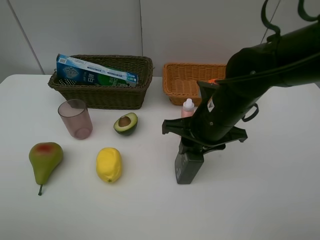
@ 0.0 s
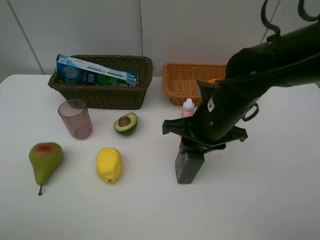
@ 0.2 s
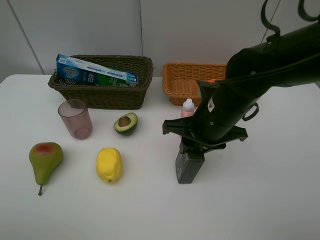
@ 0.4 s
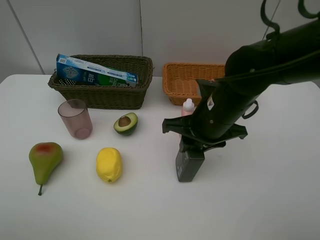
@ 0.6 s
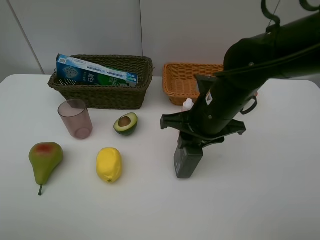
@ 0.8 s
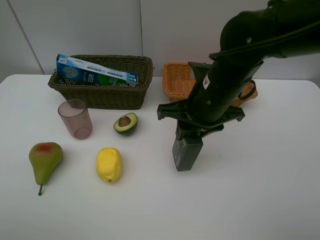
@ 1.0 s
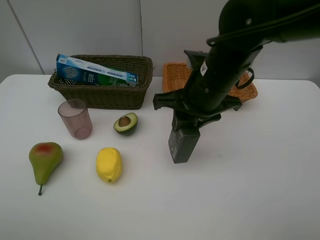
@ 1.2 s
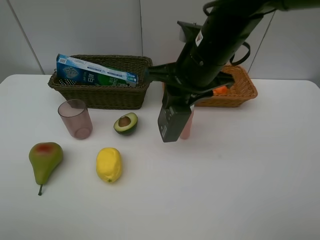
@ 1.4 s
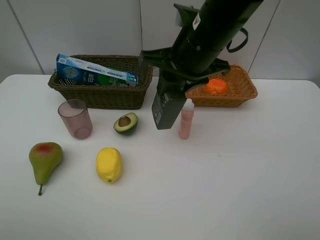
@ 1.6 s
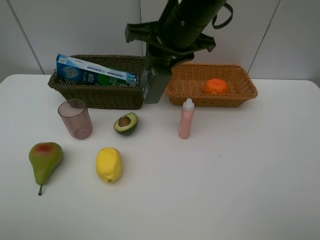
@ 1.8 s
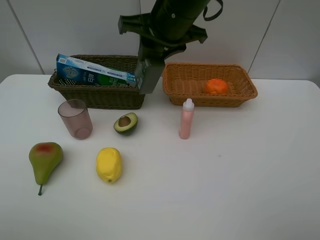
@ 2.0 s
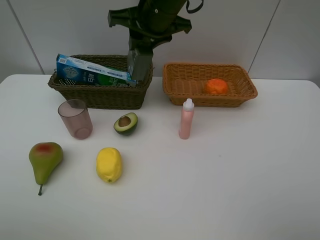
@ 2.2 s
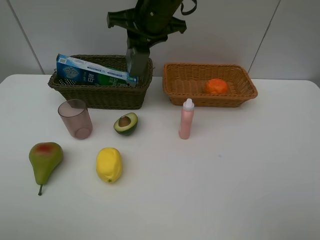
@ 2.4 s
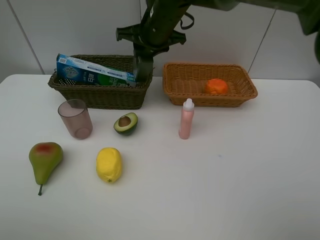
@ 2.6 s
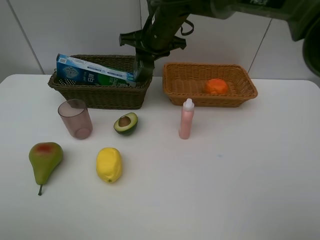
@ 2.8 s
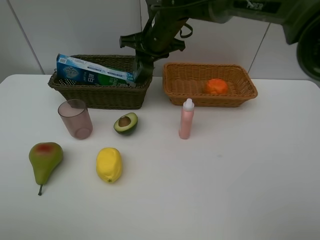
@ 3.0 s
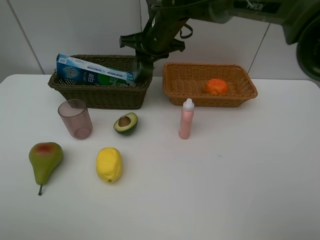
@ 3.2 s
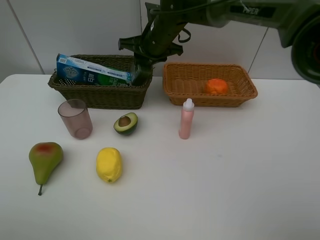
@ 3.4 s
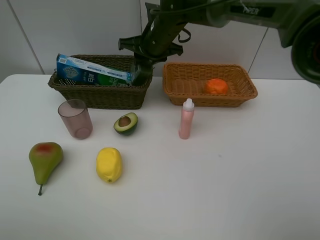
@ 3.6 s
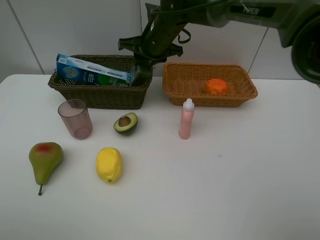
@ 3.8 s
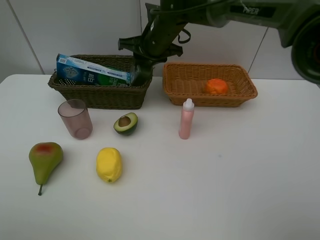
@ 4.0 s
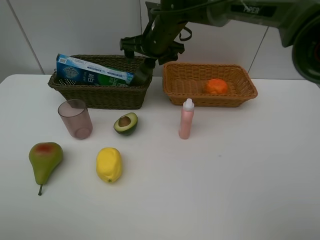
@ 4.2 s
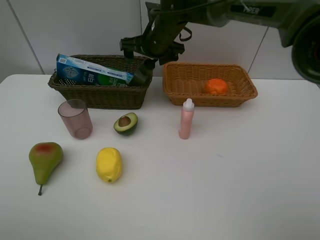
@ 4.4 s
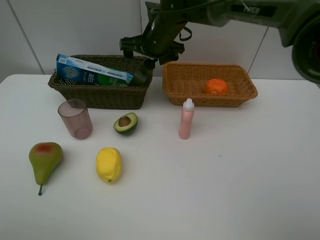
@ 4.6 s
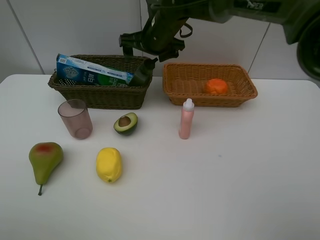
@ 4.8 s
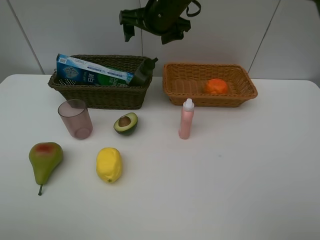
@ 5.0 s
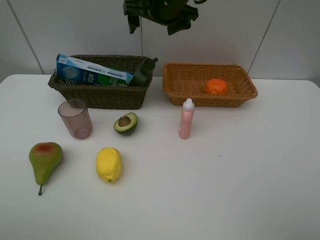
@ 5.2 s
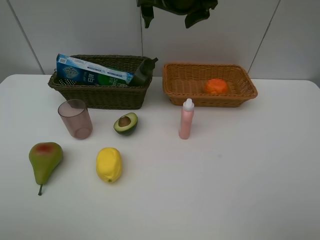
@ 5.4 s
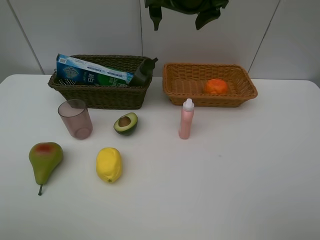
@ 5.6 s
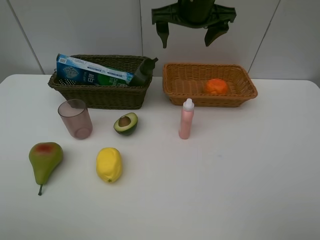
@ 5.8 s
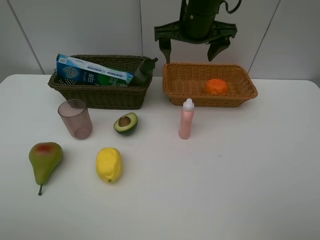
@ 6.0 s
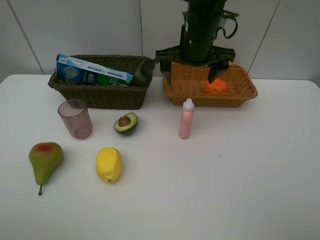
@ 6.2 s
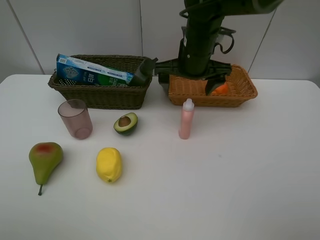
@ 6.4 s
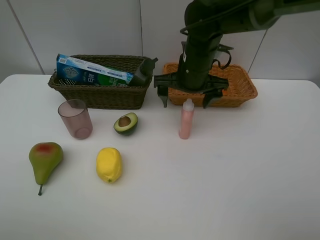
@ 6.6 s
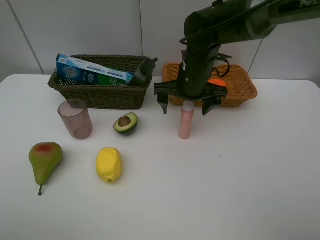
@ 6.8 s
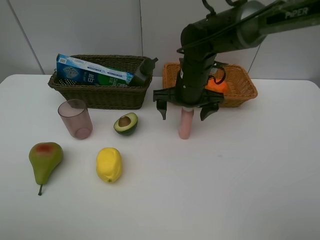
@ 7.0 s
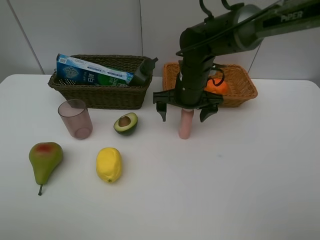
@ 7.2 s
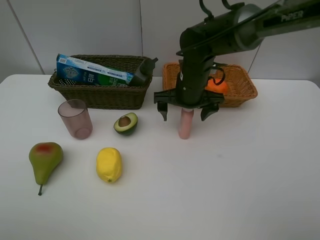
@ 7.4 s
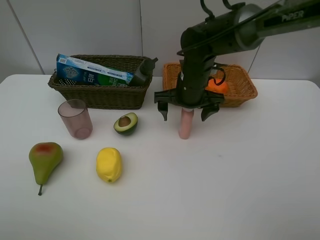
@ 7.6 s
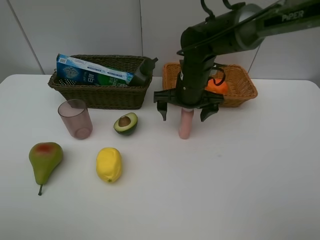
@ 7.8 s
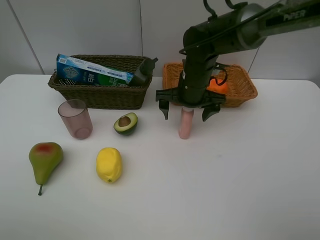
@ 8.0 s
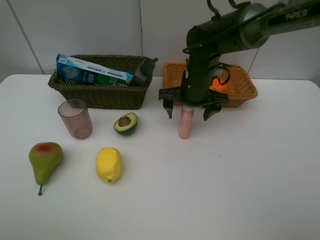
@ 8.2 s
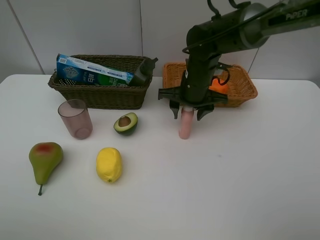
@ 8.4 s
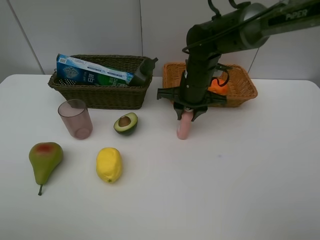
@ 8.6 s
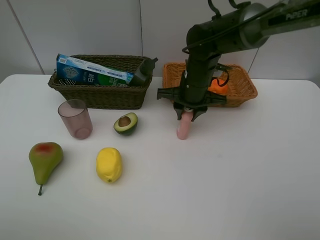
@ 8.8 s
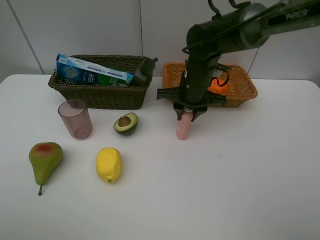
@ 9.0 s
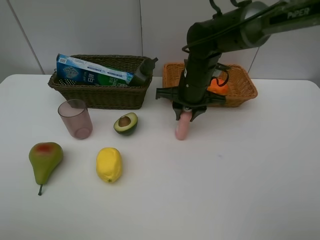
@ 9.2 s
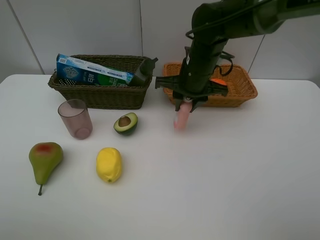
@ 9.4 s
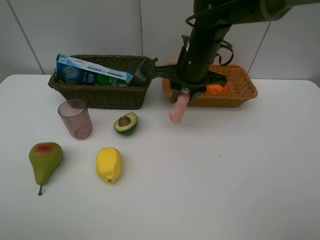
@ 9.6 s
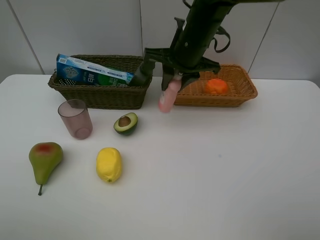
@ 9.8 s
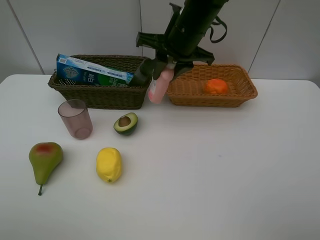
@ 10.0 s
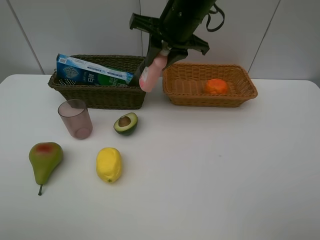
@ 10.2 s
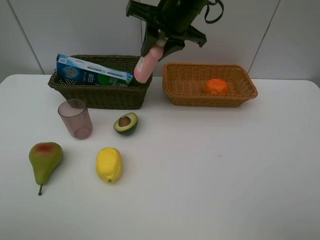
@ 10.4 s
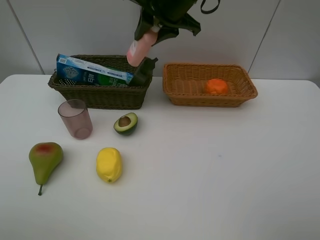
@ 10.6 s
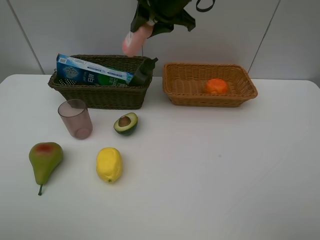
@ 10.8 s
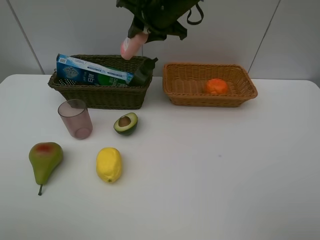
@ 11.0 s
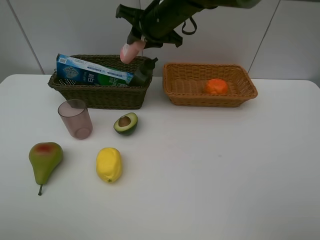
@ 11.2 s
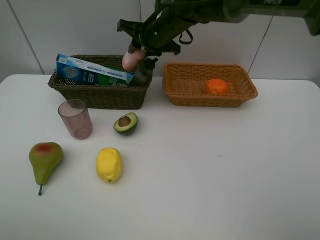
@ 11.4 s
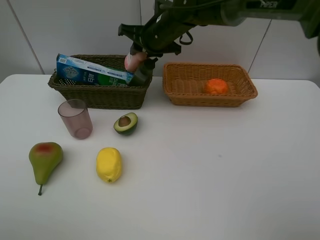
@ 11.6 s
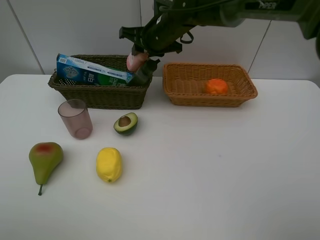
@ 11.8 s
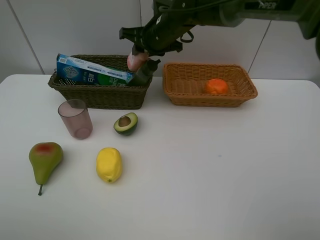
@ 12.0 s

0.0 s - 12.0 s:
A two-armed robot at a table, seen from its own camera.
Task of the whole recording: Place multiple objects separately in different baskets.
Step, 1.2 s - 4.8 s: Place the hard facial cleanser in the dark basket with right gripper.
Step, 5.0 s - 9.2 s: Pick up the laundry detergent with right gripper.
0.0 s - 1.6 s: The right gripper goes roughly 10 cm upward.
1.6 s - 3.0 s: The right gripper shifts about 15 cm forward.
3.0 s - 4.4 s: The right gripper opens its fingers.
4.4 s - 6.0 s: The right gripper travels upward, to the right and backward by approximately 10 cm.
6.0 s - 7.6 s: The right gripper heads downward, covering some 15 cm.
7.6 s - 9.0 s: The right gripper closes its fingers.
9.0 s - 10.4 s: The right gripper heads upward, covering about 15 cm.
10.4 s - 12.0 s: The right gripper shifts about 10 cm downward and forward.

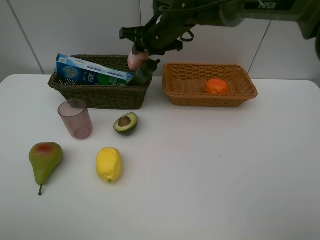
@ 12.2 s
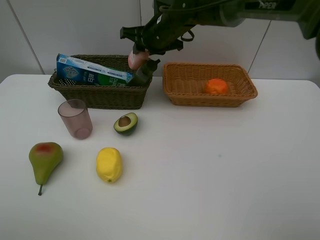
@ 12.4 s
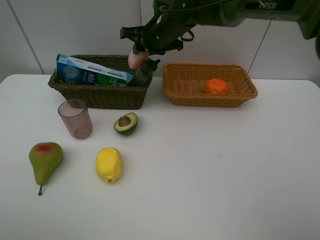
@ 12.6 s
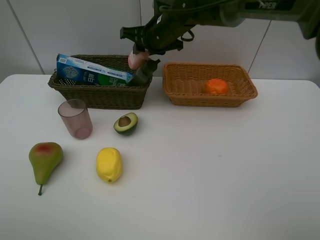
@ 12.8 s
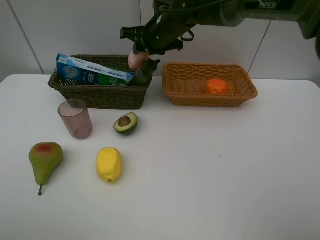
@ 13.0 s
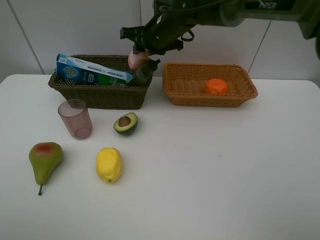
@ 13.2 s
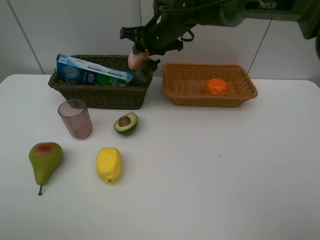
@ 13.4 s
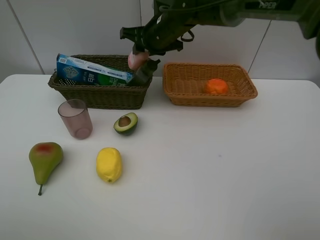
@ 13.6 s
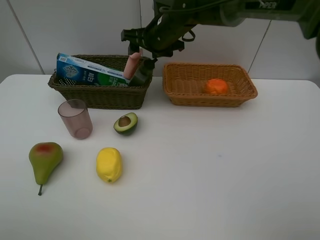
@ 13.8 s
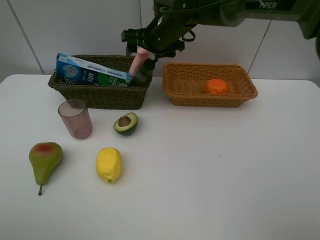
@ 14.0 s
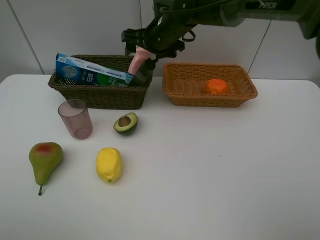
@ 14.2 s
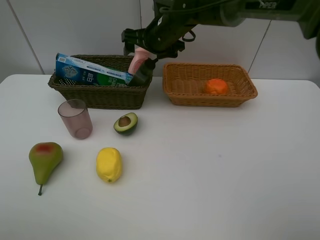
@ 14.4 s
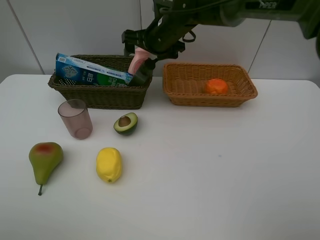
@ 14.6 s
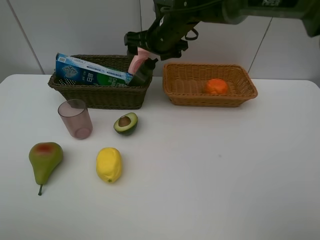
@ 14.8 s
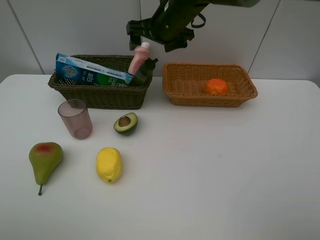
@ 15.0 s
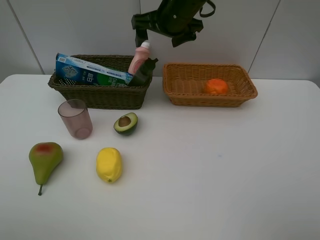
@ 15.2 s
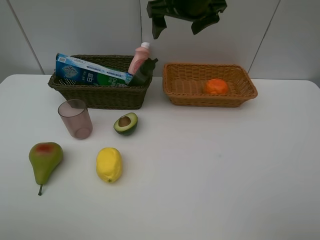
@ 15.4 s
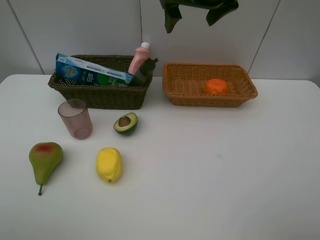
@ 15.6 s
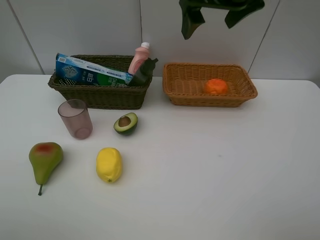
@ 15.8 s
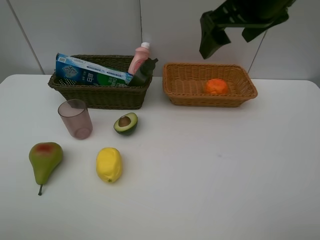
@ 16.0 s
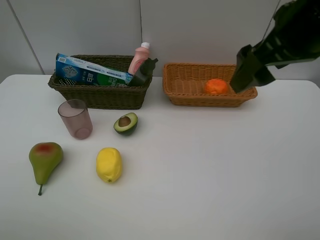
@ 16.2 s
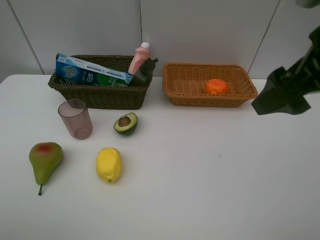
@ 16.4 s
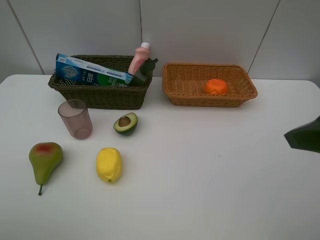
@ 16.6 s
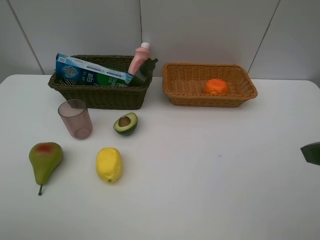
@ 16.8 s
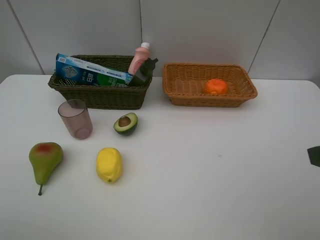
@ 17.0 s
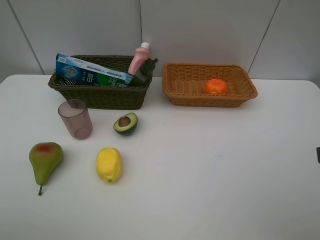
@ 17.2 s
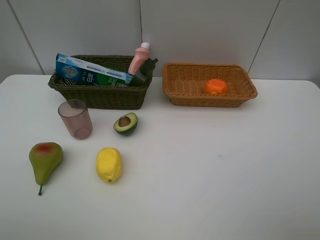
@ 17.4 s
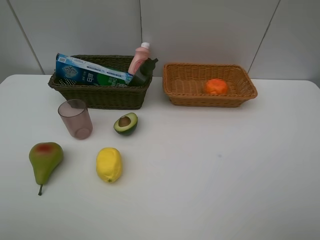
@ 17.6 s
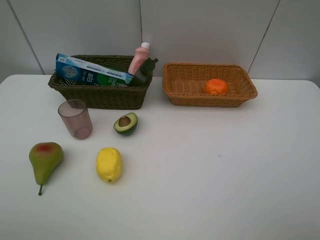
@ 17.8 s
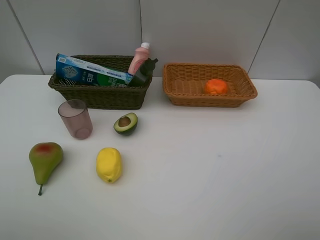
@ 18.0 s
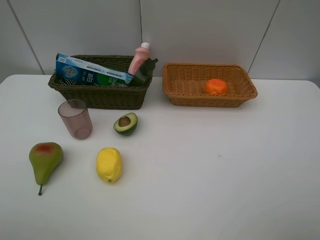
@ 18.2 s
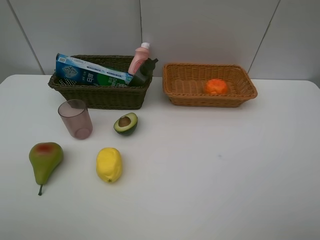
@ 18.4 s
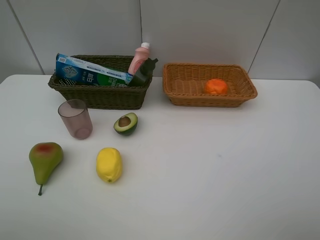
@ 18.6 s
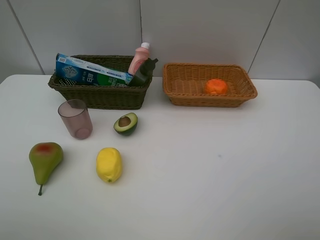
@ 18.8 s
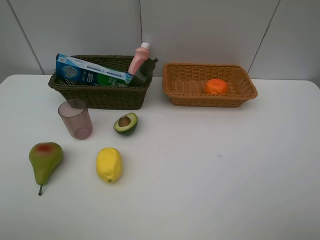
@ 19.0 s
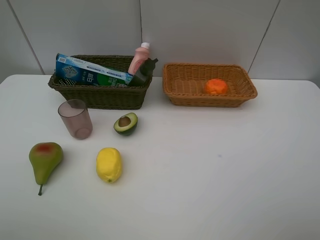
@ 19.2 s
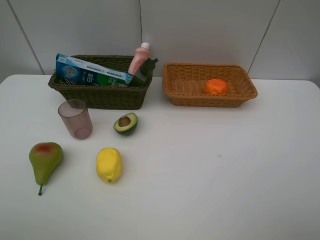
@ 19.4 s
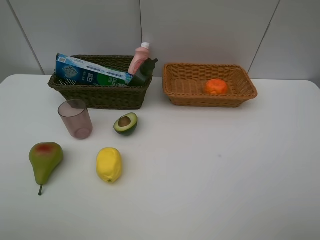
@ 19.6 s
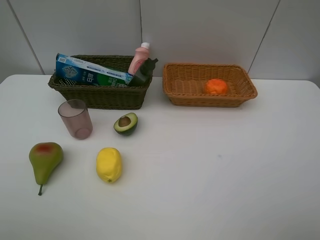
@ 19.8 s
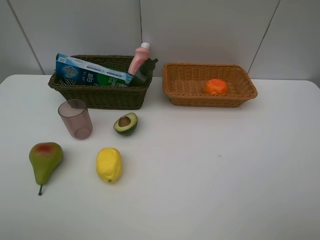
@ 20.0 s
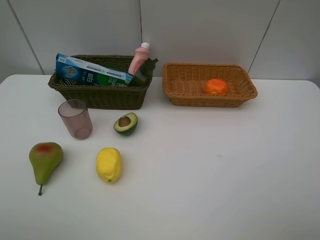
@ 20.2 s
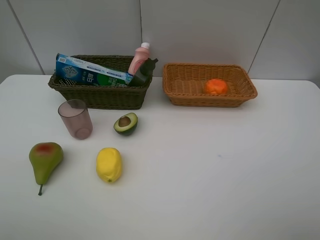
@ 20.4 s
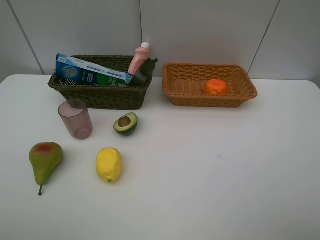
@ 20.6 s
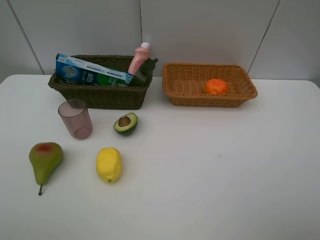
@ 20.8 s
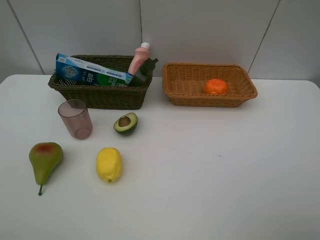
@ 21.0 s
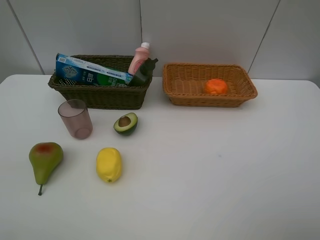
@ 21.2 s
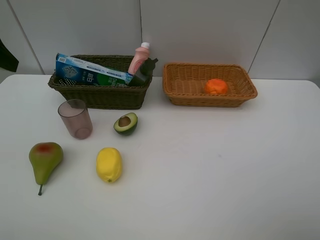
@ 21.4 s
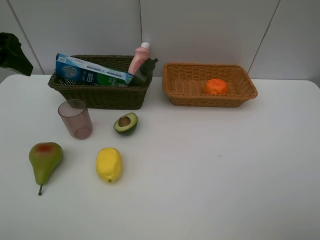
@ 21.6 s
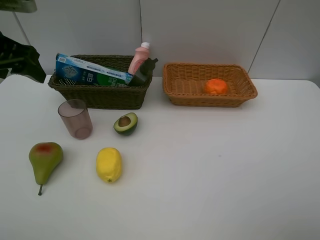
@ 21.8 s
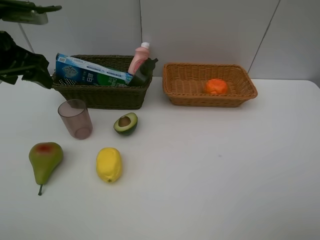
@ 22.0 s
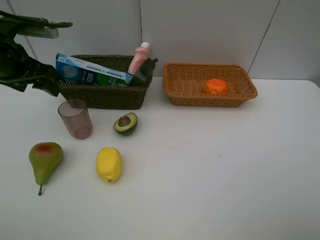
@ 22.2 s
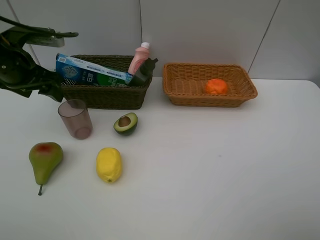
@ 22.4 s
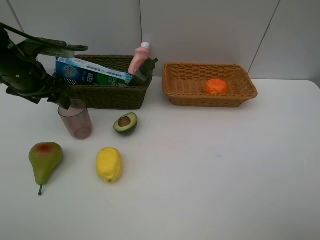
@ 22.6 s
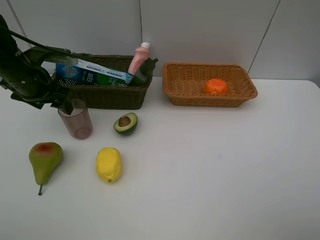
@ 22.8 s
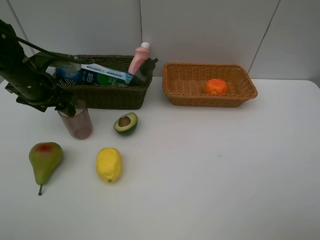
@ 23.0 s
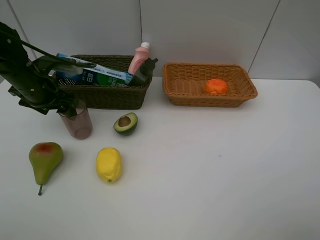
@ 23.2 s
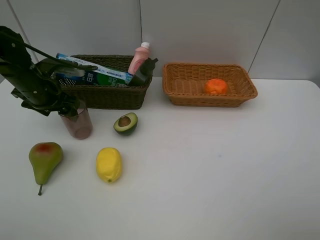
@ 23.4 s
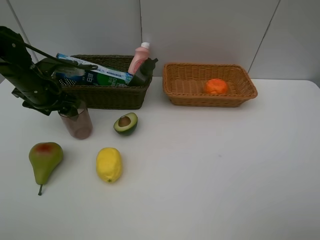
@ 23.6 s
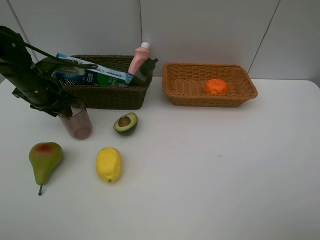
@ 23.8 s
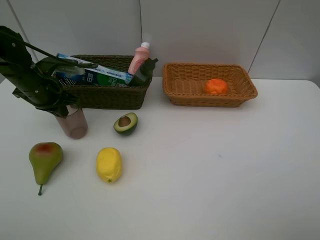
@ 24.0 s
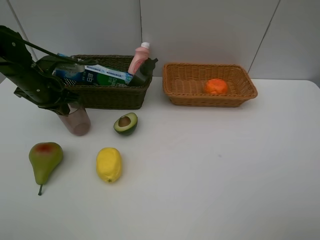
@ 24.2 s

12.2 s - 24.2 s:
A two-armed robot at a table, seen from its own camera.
Task of the whole recording: Place multiple objects separately in different baskets.
Step, 12.2 s - 14.2 s: Place the laundry detergent in the dark basket with right gripper.
12.2 s - 13.8 s: The right gripper opens.
13.8 s - 15.2 s: The right gripper travels upward by approximately 5 cm.
15.2 s - 16.6 s: The right gripper heads backward and to the right, covering about 35 cm.
16.6 s - 18.2 s: The right gripper heads backward, covering some 10 cm.
18.2 s - 19.8 s: Both grippers stay put.
21.2 s - 22.6 s: The left gripper is displaced forward and downward by approximately 20 cm.
22.6 s - 24.2 s: The left gripper closes its fingers.
